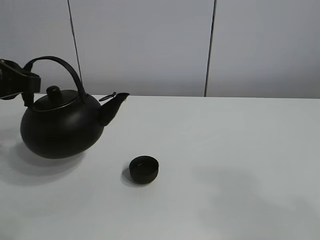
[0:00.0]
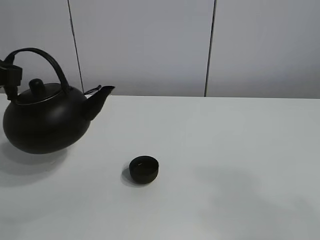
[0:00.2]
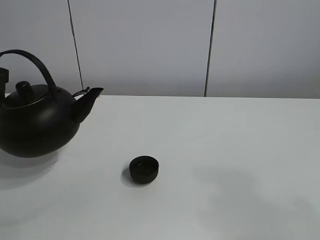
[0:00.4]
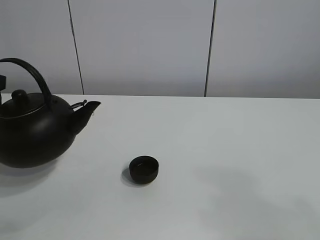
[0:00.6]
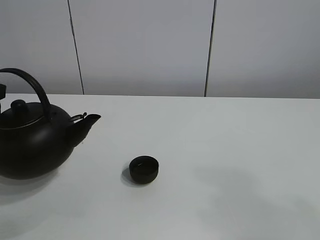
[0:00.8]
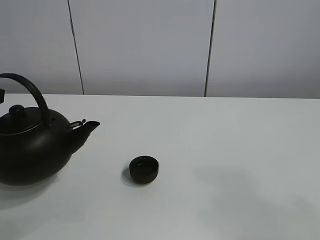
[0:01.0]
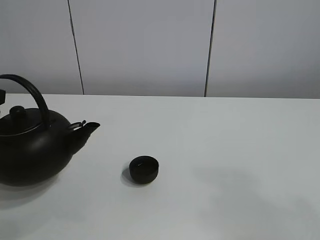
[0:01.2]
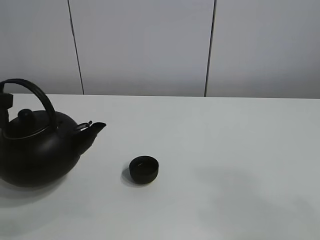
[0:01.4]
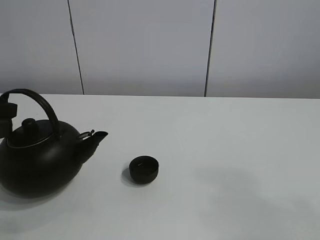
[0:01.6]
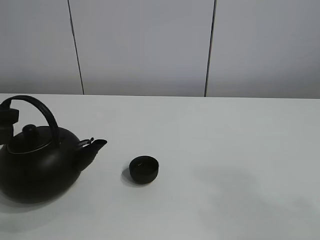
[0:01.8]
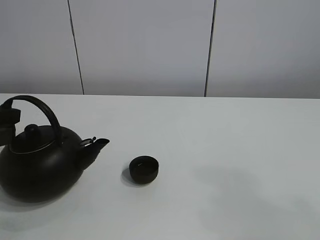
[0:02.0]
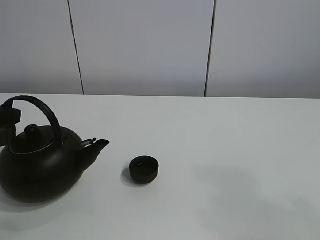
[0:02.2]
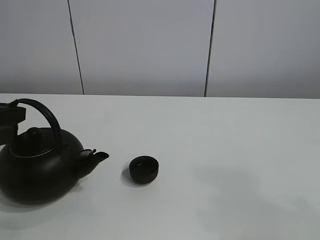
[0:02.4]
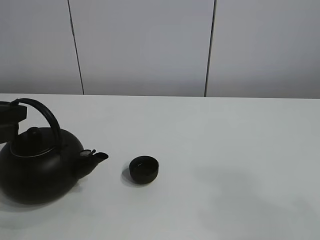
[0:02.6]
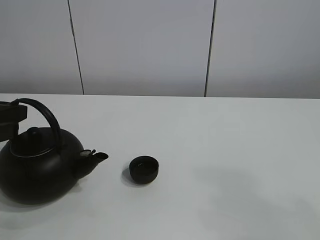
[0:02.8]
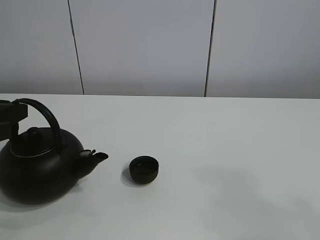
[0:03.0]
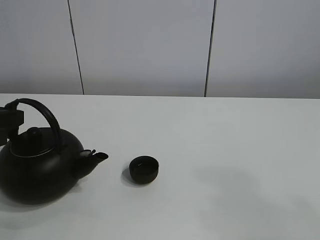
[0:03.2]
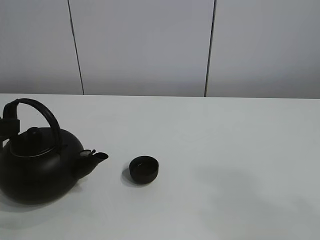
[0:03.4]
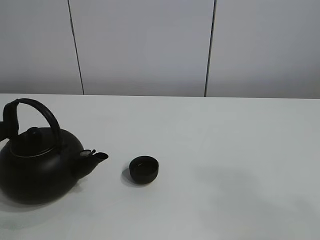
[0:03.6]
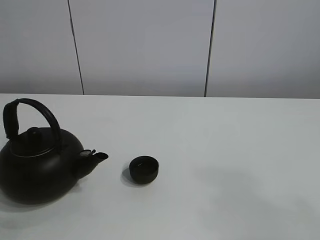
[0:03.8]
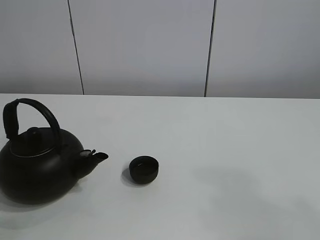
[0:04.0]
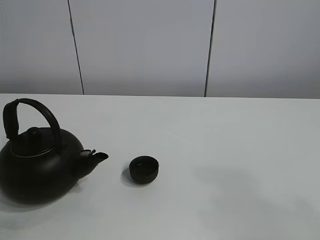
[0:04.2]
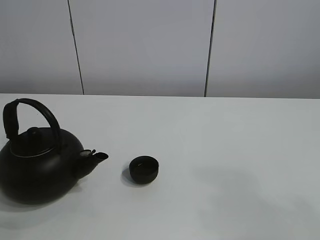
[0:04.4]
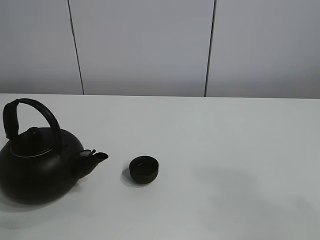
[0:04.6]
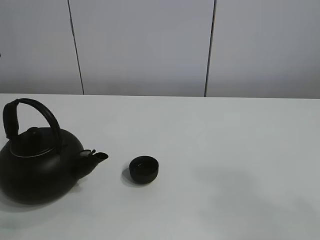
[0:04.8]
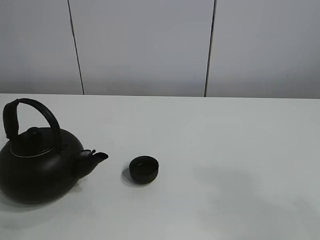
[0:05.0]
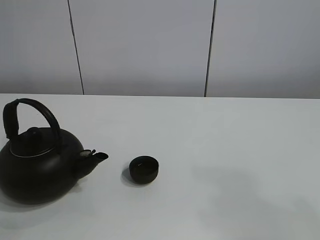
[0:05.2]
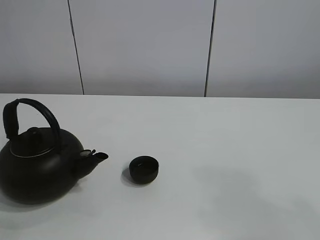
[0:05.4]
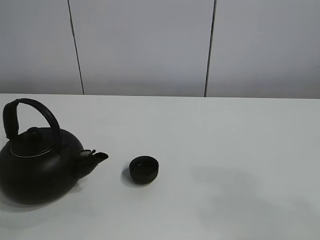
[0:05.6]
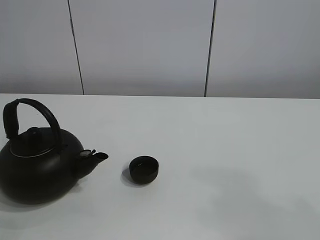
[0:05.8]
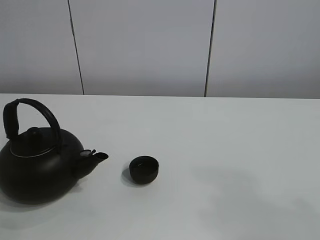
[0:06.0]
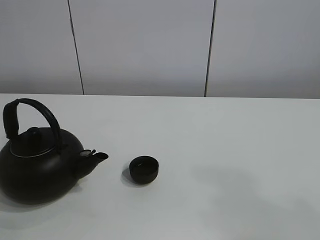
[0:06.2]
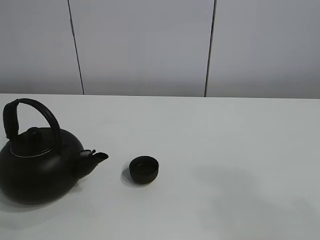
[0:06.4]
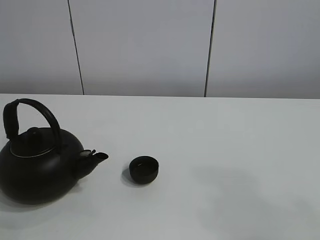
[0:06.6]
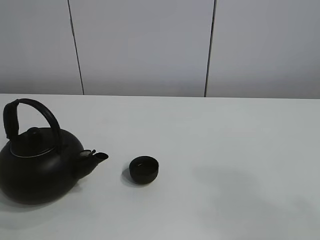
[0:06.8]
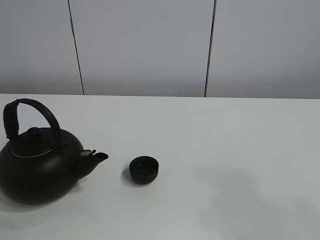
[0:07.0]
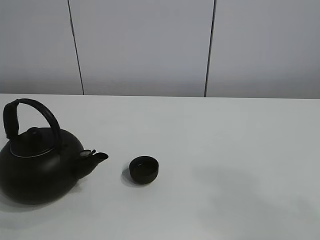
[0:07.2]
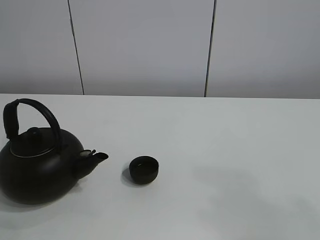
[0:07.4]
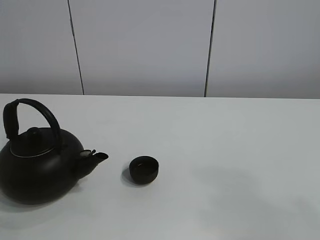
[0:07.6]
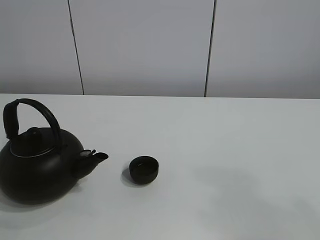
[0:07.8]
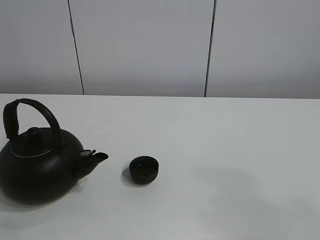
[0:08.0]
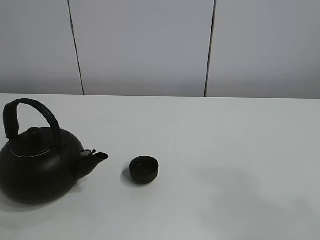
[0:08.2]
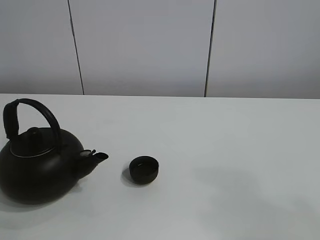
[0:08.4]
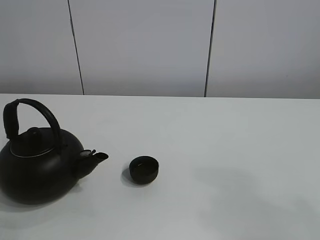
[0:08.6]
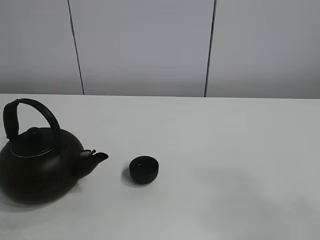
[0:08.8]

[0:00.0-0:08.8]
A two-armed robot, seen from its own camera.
Task of the whole recording: pour tea into the teacup.
0:00.0 to 0:01.4: The left gripper shifts by approximately 5 cm.
0:01.4 to 0:03.0: The left gripper opens.

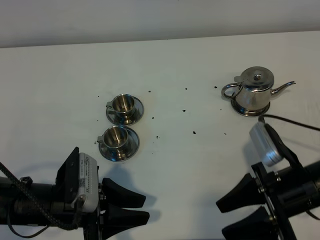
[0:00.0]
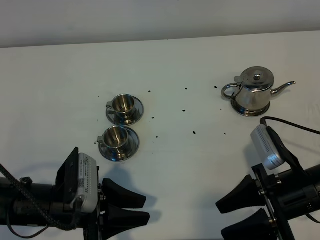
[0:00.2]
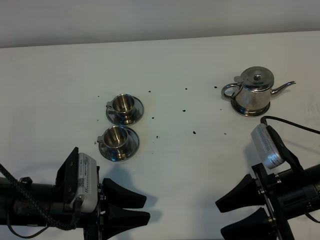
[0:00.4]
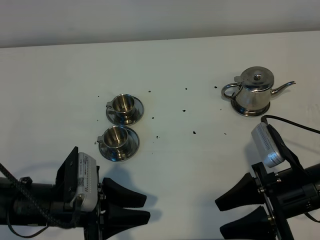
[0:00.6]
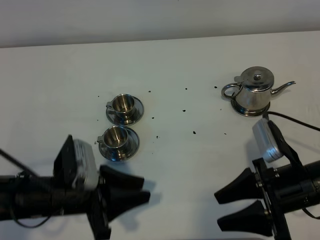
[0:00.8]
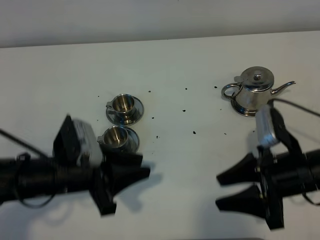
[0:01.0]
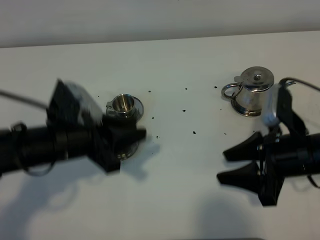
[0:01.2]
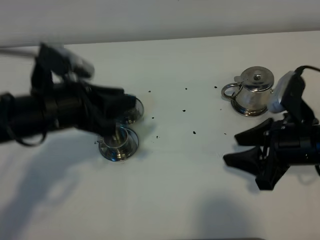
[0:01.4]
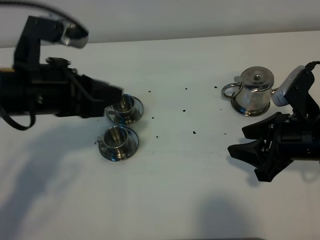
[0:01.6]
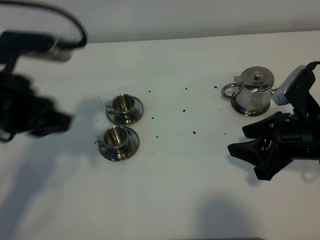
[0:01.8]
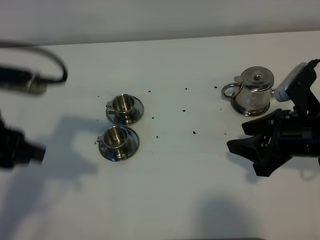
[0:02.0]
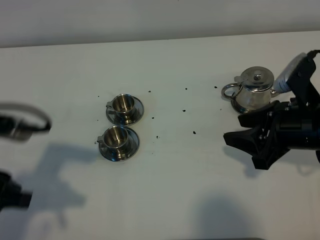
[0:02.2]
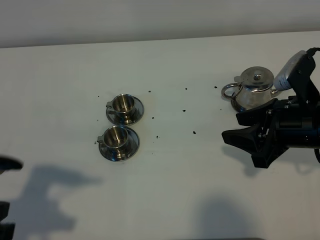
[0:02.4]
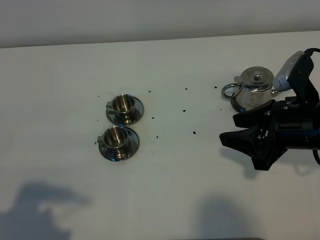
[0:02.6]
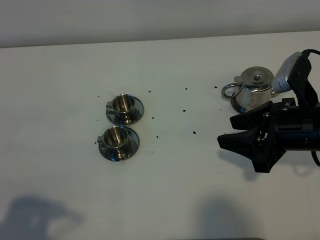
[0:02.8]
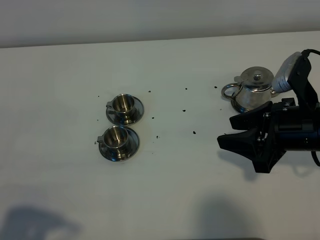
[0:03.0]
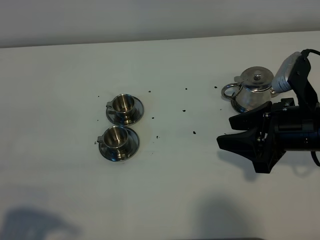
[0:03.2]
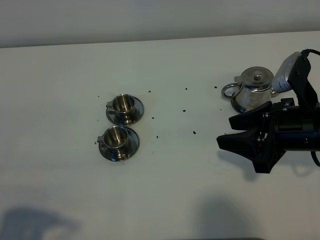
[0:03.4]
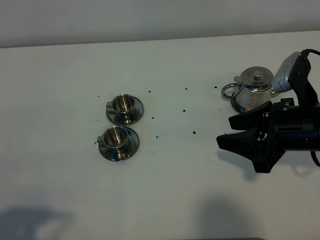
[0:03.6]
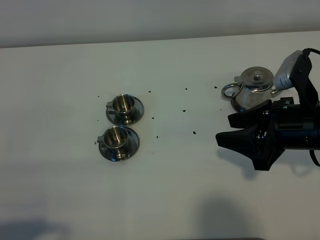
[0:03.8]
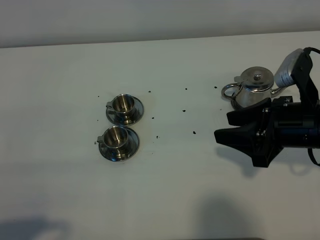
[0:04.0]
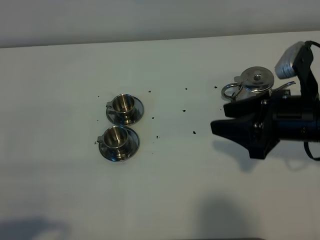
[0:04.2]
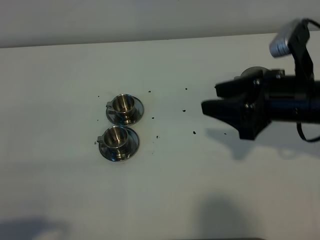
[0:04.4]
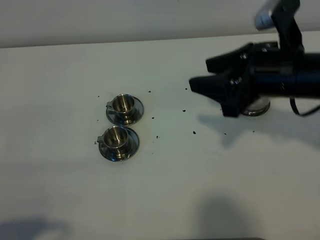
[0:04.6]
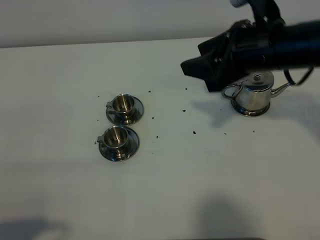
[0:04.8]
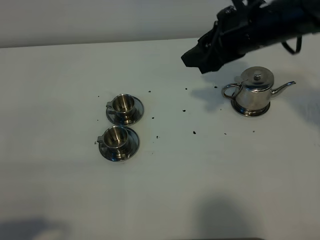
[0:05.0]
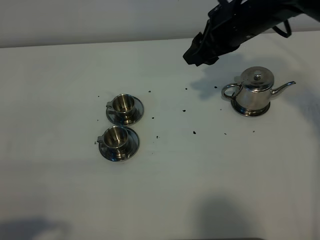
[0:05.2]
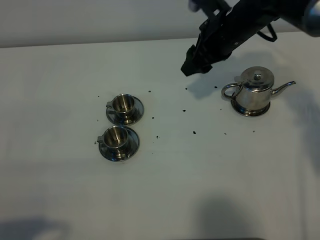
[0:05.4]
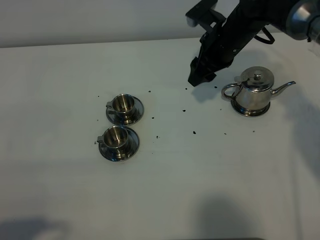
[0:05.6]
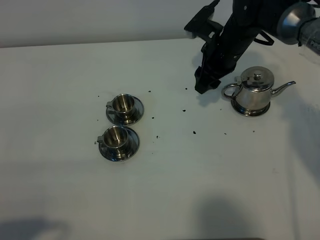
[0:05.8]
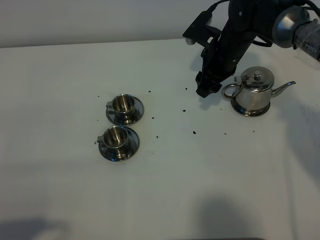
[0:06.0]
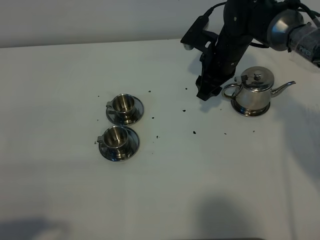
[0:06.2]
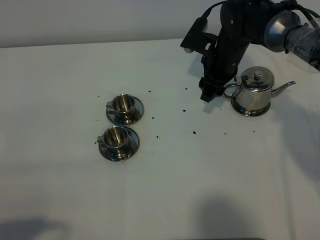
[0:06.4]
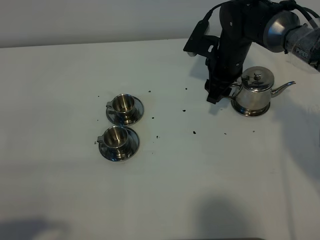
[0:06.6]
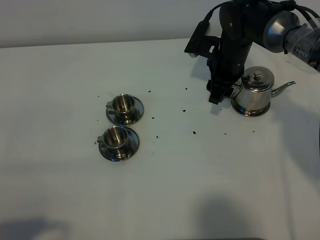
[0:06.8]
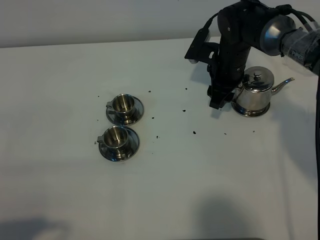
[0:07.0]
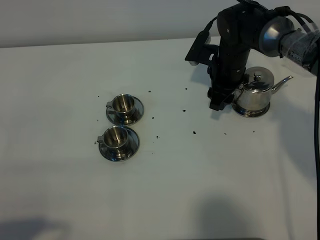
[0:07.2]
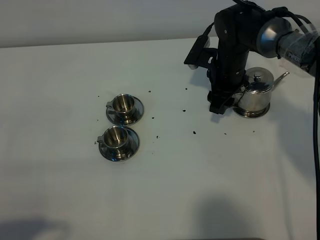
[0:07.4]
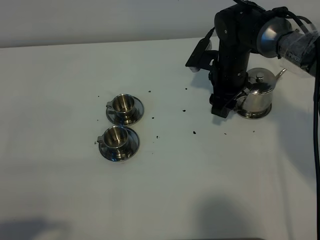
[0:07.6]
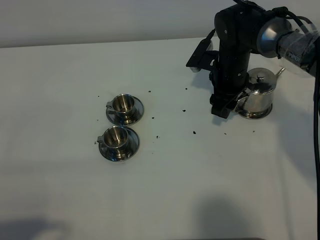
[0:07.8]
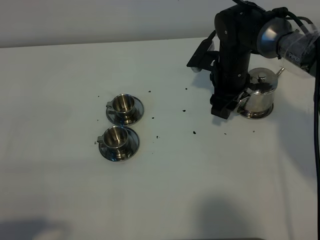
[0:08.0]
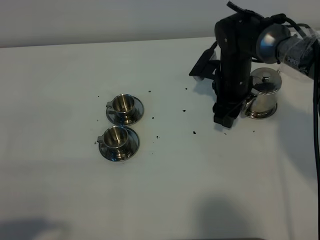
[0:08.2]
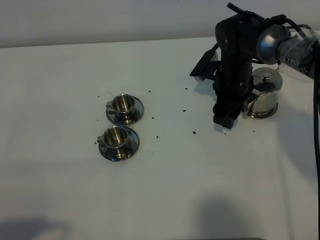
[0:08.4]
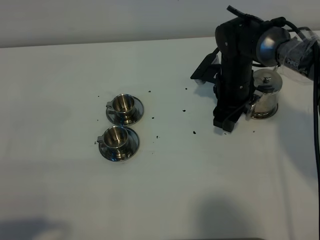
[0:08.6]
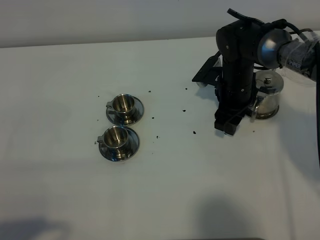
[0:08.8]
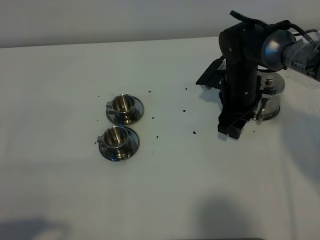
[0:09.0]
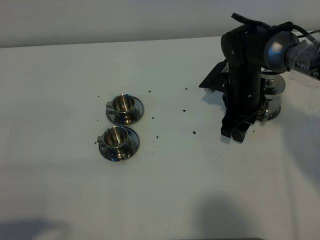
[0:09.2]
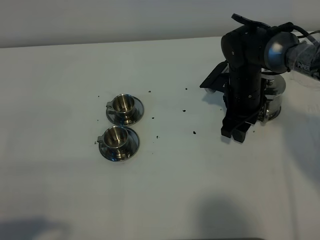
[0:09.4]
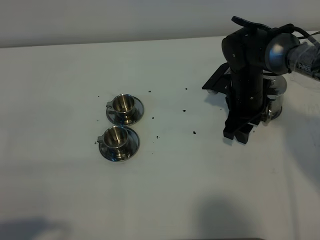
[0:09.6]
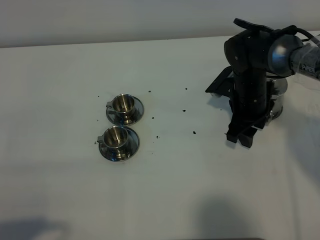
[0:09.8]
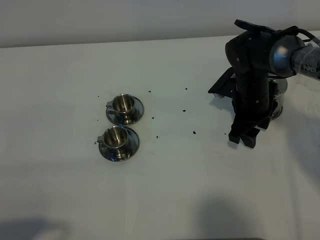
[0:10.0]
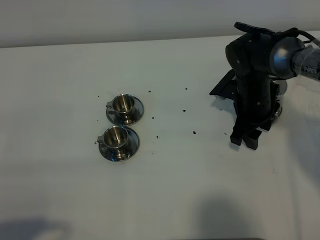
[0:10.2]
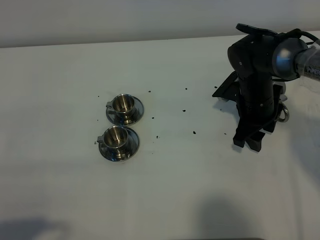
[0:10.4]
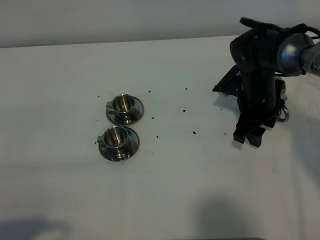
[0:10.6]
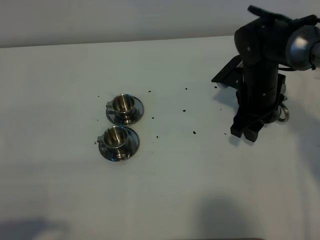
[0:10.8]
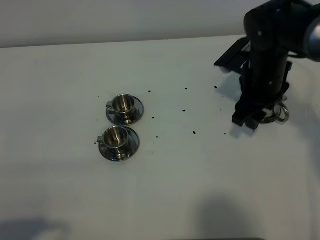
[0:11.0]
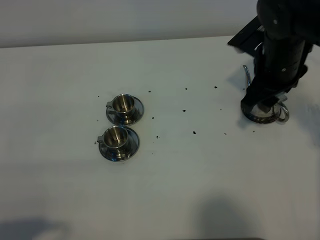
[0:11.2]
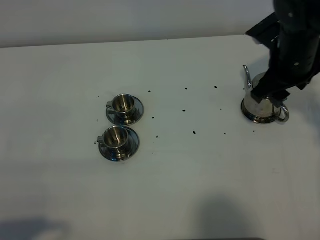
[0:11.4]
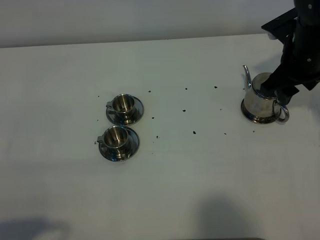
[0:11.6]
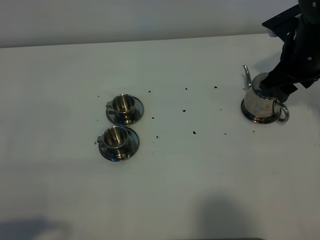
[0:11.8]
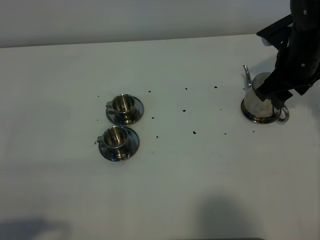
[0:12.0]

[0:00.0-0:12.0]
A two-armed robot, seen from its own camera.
Task of the whole recording: grasp the stainless steel teapot and pour the tea into the two stainless steel teacups one by one, put the stainless steel teapot back in its original place.
0:00.0 to 0:01.6: The left gripper shifts approximately 20 cm upward and forward, while the right gripper is displaced forward by approximately 5 cm.
0:01.6 to 0:03.0: The left gripper is displaced backward and to the left by approximately 25 cm.
0:03.0 to 0:04.4: The right gripper ends up some 5 cm from where it was.
0:04.4 to 0:06.0: The right gripper moves forward and downward, roughly 20 cm.
0:06.0 to 0:07.6: The grippers stay close to where they were, moving slightly.
0:07.6 to 0:09.0: The grippers make only small movements.
0:09.0 to 0:10.4: The grippers make only small movements.
0:10.4 to 0:12.0: The right gripper heads upward and to the right, covering about 10 cm.

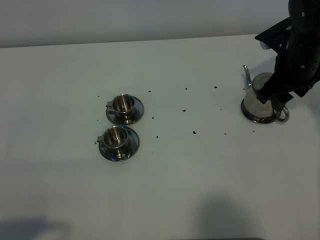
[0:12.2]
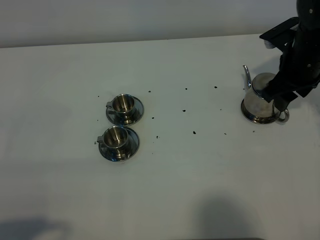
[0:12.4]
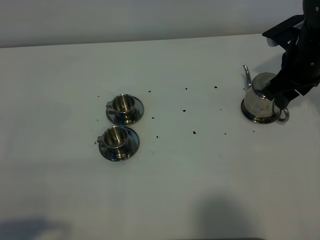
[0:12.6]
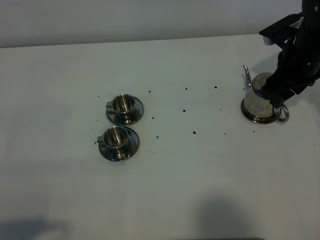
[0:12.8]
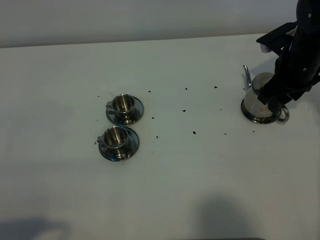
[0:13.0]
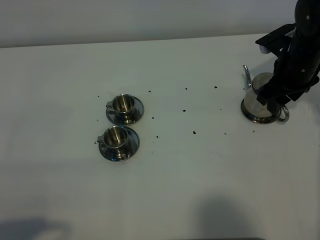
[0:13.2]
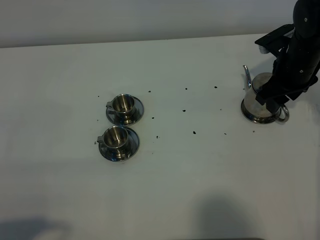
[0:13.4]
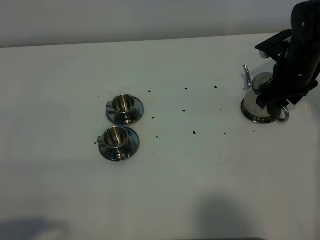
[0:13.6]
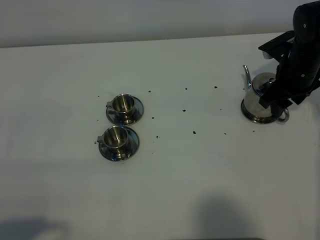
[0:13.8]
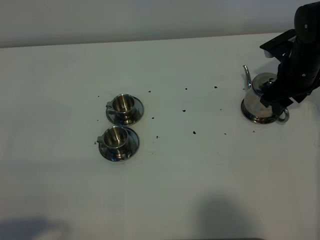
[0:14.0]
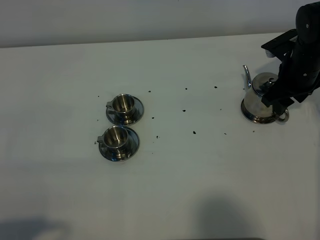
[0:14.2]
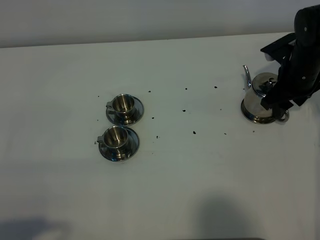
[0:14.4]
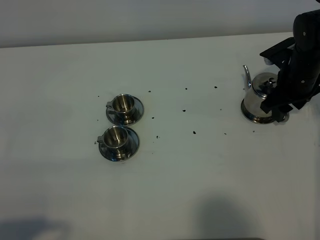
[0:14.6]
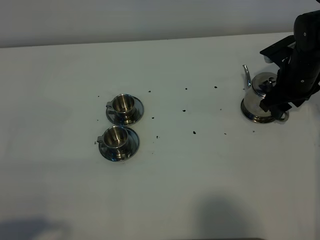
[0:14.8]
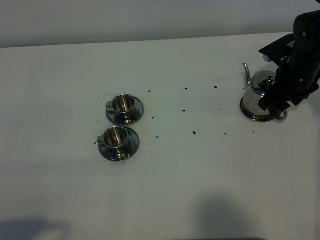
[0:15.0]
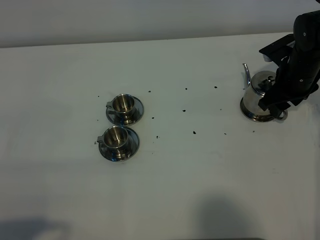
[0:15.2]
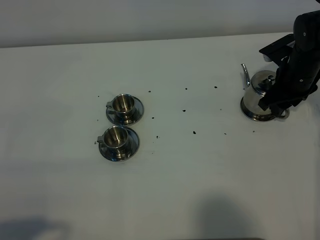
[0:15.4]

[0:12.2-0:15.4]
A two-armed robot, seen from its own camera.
Task of the whole recording: grasp the stainless steel teapot and pour the tea into the two stainless steel teacups one by one, put the stainless steel teapot back in its original place.
0:12.2 to 0:13.8: The right gripper moves about 5 cm.
0:13.8 to 0:15.4: The grippers stay close to where they were, moving slightly.
